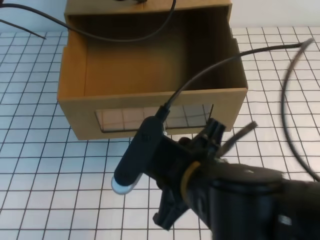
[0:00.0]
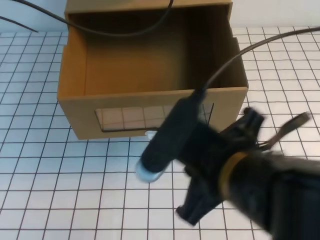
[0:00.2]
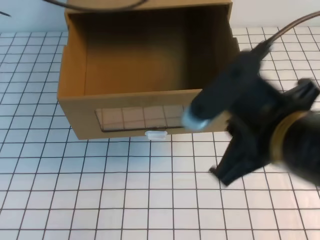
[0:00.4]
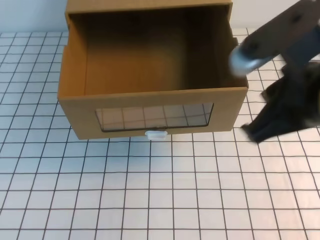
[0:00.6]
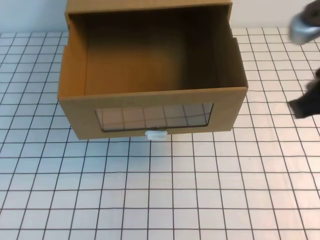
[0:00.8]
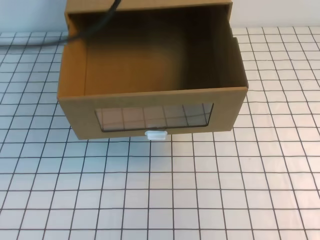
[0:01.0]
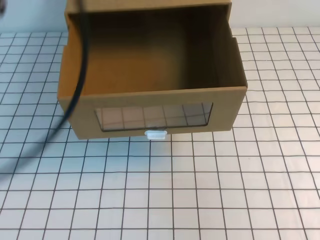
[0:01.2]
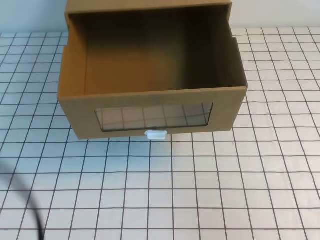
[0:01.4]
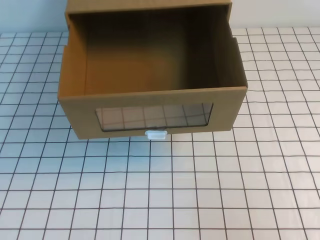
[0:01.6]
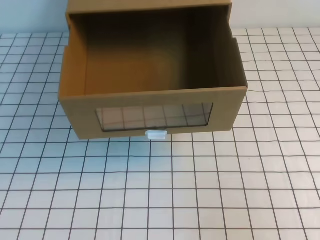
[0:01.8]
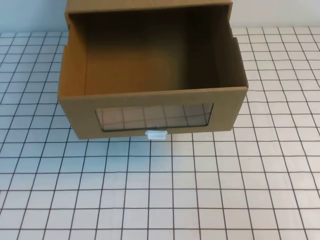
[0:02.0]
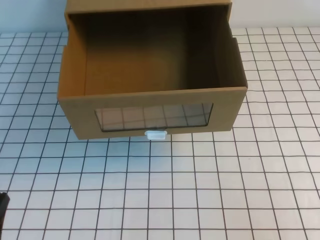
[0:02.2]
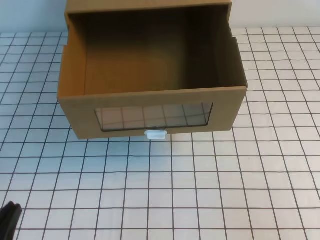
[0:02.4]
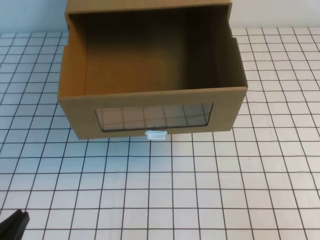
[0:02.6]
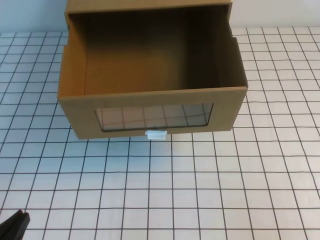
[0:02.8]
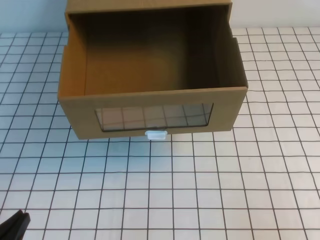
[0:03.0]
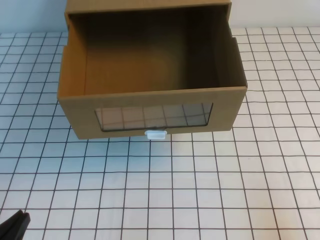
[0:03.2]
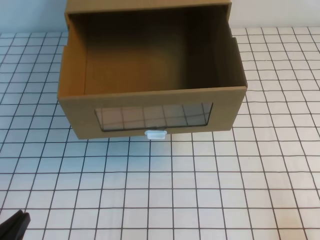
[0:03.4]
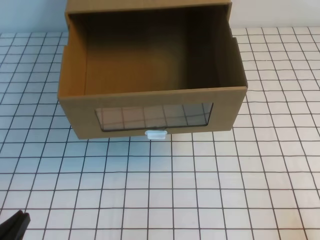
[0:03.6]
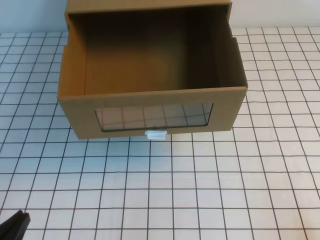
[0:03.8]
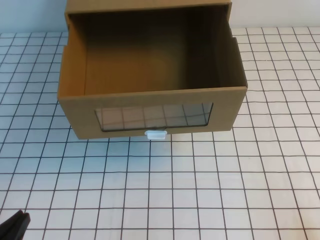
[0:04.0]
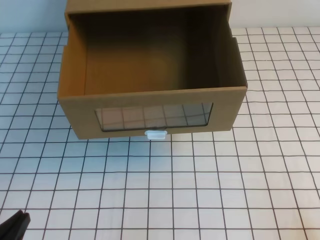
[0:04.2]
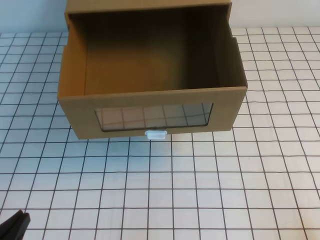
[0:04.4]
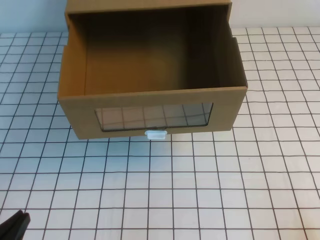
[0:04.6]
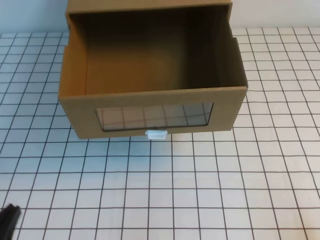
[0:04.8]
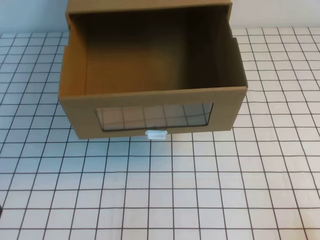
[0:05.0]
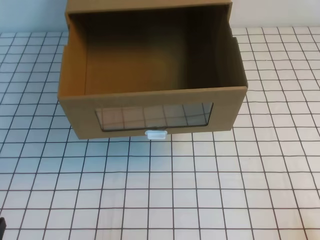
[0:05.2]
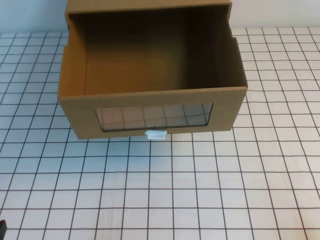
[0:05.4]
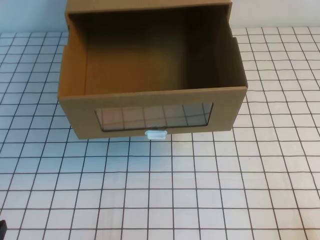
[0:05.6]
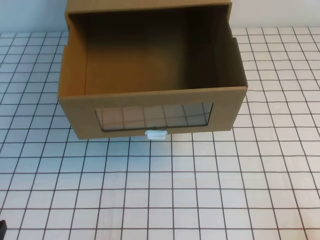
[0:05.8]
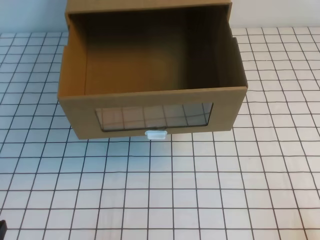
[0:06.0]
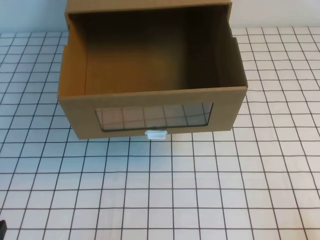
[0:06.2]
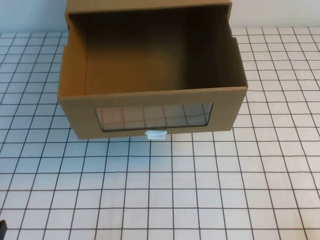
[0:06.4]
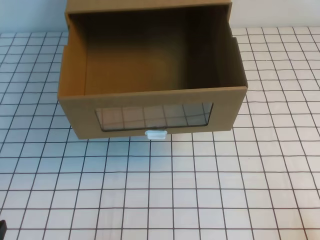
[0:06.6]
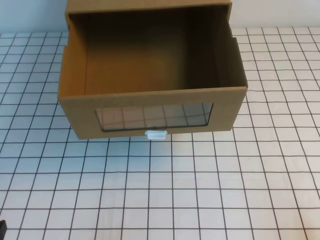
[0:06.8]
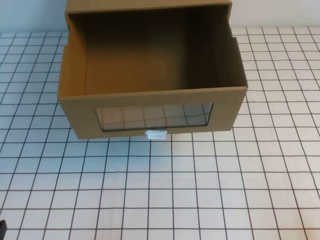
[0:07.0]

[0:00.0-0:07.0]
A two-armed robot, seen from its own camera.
Task of the whole recording: open the shoebox on the white tablecloth.
Step, 0:00.0 to 0:07.0: Open the shoe box.
0:00.0 to 0:01.4: The left gripper travels backward by about 30 cm; the right gripper heads to the right, covering approximately 25 cm, and closes up.
0:01.4 to 0:02.8: The left gripper travels downward by some 30 cm.
0:05.6 to 0:07.0: Both grippers stay about where they are.

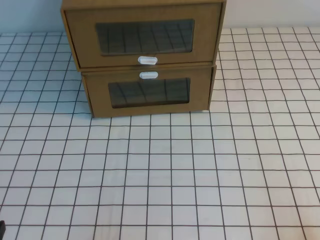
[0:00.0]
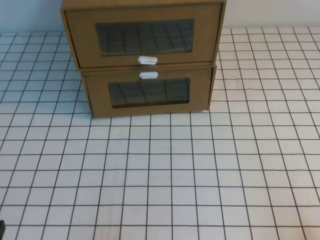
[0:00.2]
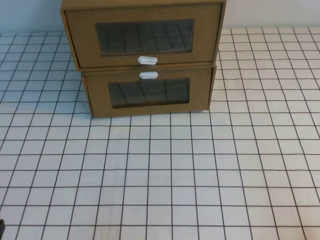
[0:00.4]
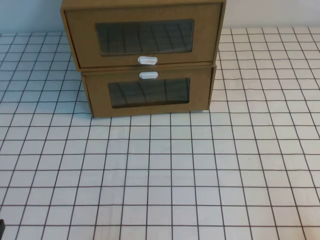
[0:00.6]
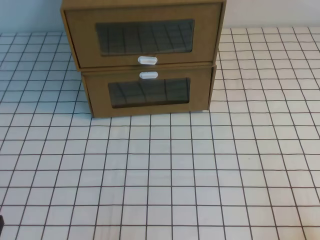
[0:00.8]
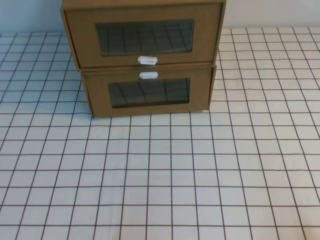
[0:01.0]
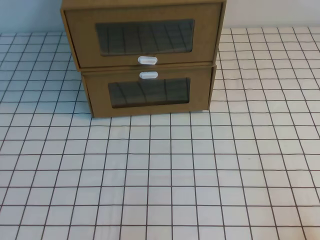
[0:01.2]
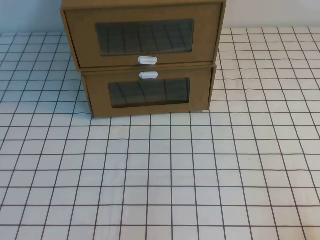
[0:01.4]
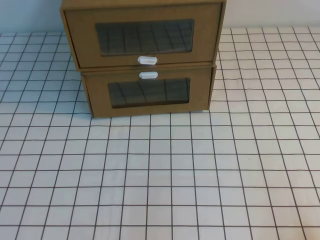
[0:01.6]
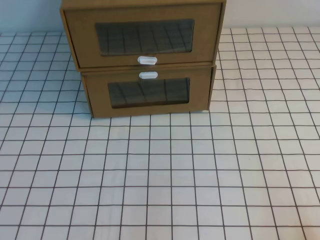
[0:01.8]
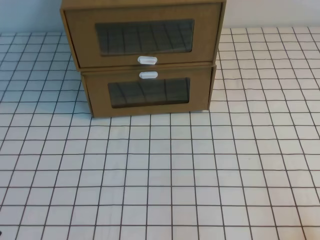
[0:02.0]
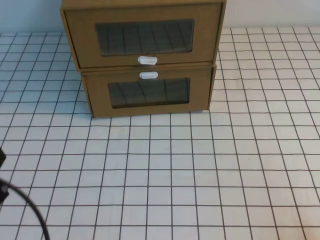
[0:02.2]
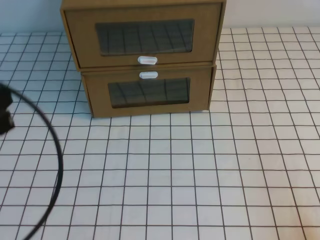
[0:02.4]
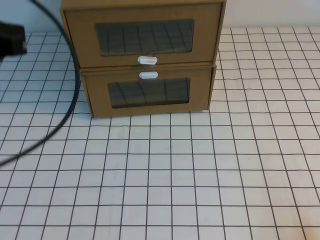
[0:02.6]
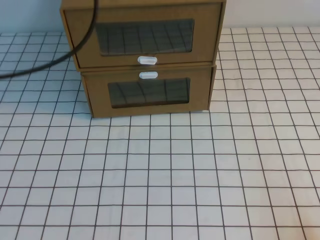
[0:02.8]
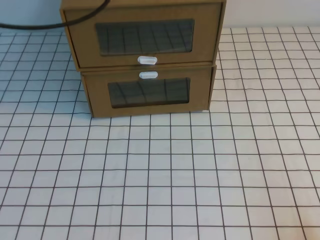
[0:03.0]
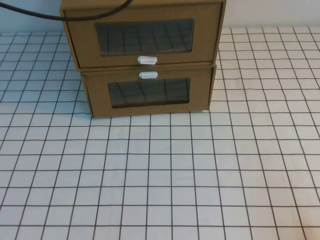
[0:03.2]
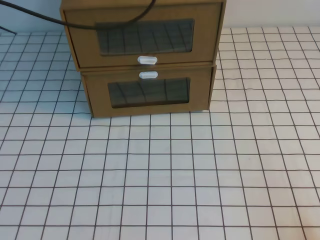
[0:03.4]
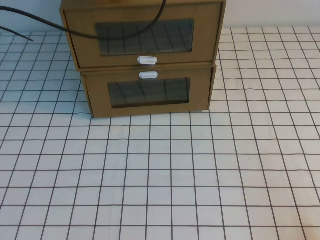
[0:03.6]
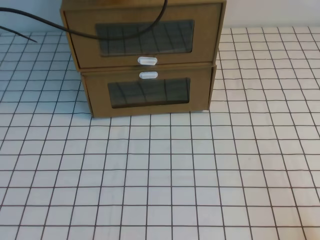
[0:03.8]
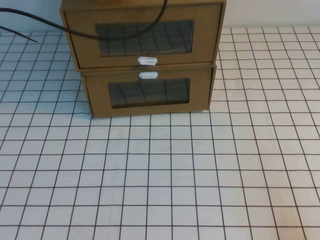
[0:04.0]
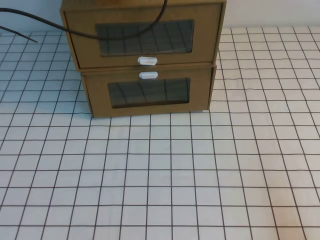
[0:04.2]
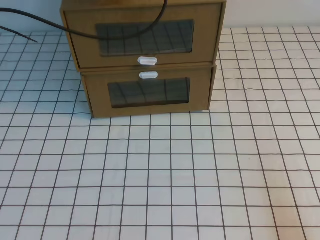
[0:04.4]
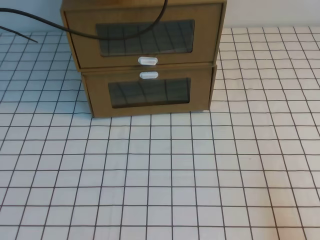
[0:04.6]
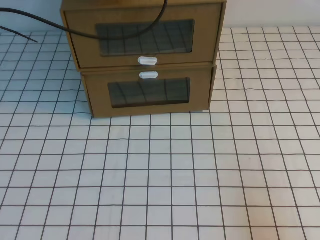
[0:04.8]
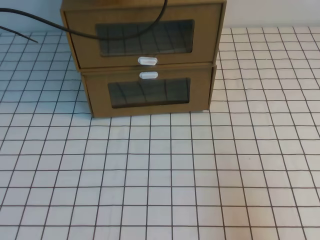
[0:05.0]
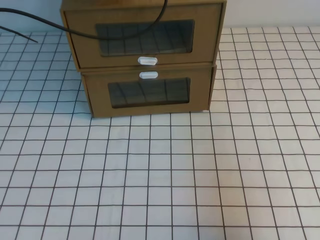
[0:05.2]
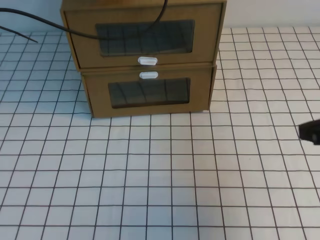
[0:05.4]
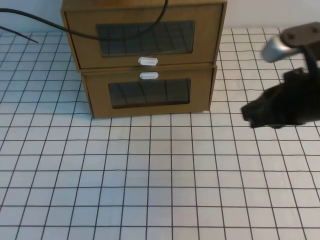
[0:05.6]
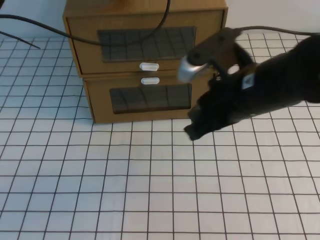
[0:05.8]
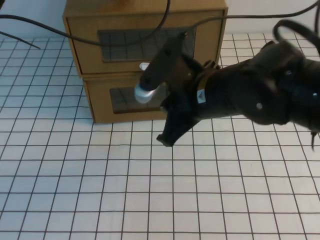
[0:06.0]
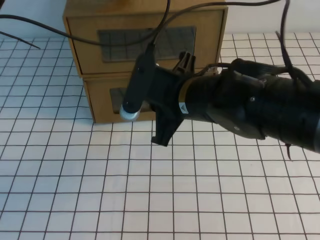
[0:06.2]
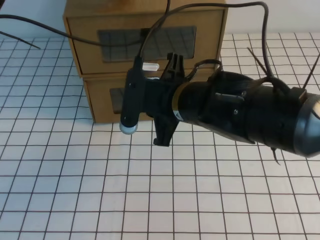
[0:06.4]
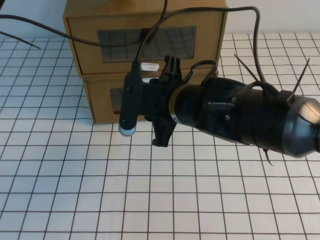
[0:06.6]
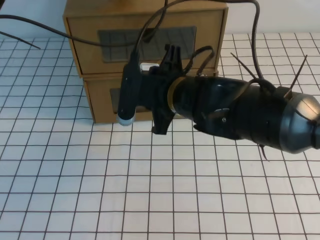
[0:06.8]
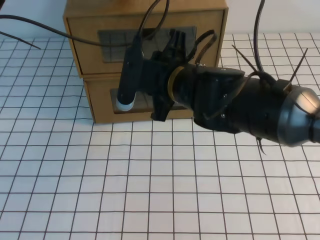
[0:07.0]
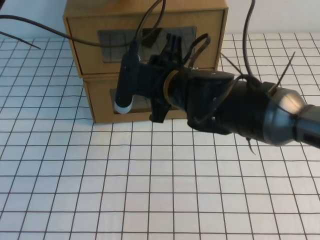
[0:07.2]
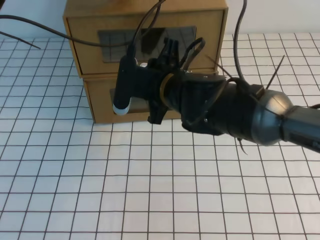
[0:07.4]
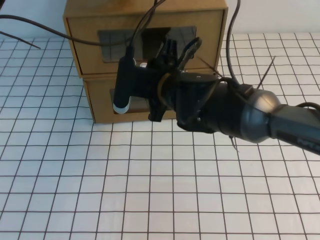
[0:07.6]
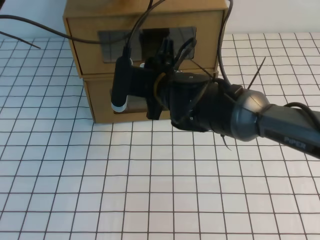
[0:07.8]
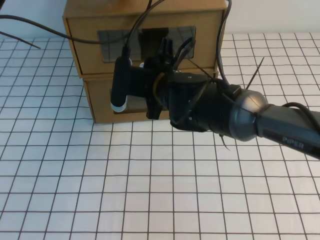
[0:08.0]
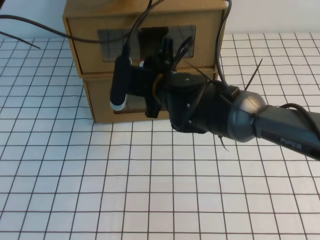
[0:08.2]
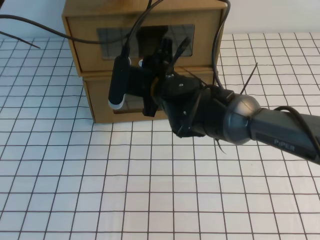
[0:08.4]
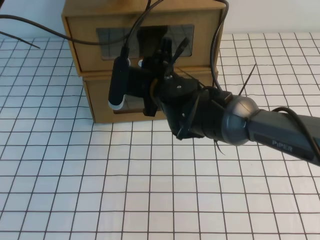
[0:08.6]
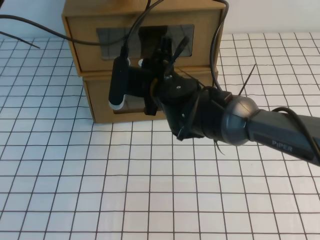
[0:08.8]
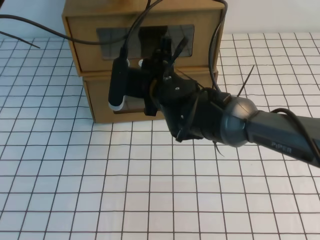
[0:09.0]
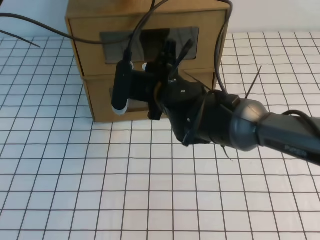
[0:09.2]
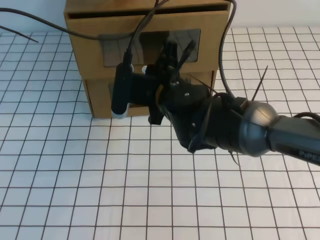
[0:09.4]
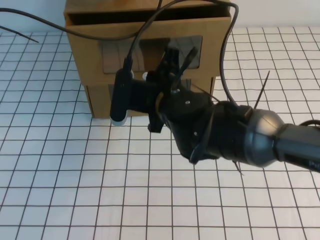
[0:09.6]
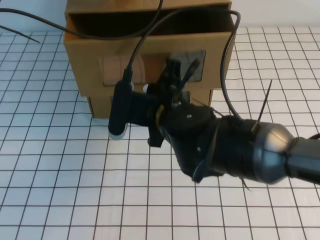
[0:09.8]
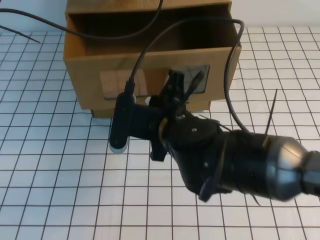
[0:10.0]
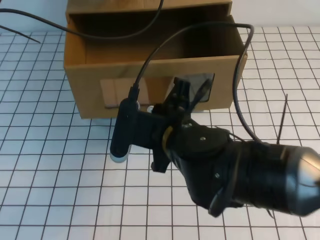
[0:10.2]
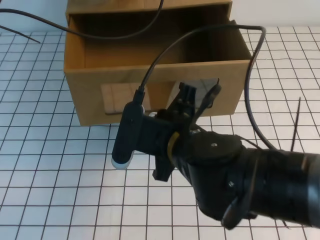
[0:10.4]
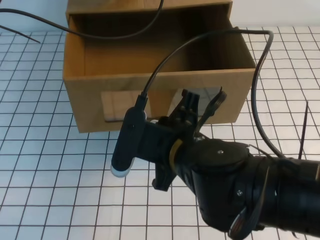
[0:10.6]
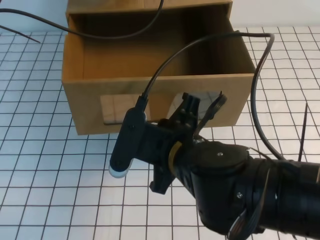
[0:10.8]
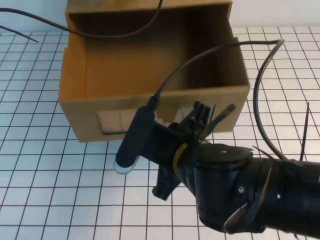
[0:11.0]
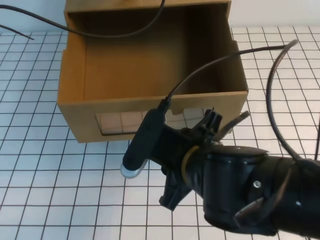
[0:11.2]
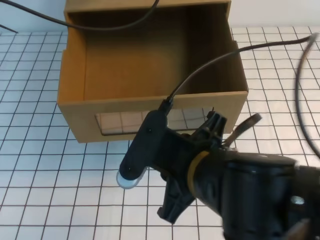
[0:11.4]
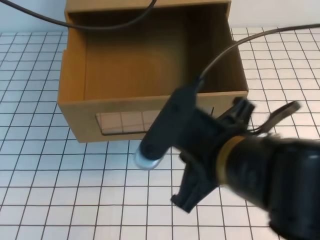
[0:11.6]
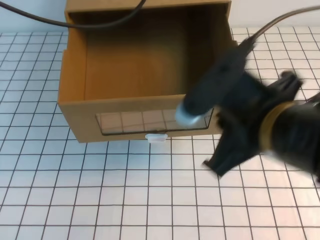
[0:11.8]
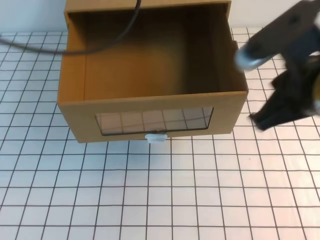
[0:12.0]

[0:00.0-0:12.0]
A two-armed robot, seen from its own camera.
Task of the whole recording: open the shoebox on the white tablecloth.
0:01.6 to 0:03.0: The left gripper goes approximately 40 cm forward and upward.
0:03.0 to 0:04.4: The left gripper moves forward, downward and to the right, roughly 15 cm.
0:04.4 to 0:06.0: The right gripper moves to the left, forward and upward, some 35 cm.
0:06.0 to 0:07.6: The right gripper heads to the left and forward, covering some 10 cm, and opens.
0:07.6 to 0:09.0: The right gripper closes up.
0:09.0 to 0:10.4: The right gripper shifts approximately 15 cm backward.
0:10.4 to 0:12.0: The left gripper moves backward and upward, roughly 15 cm. Meanwhile the right gripper is displaced to the right and upward by approximately 15 cm, and opens, then closes once more.

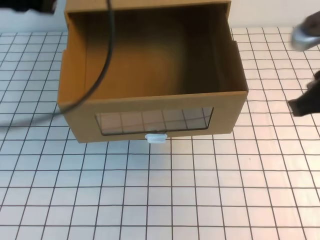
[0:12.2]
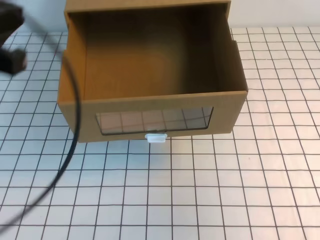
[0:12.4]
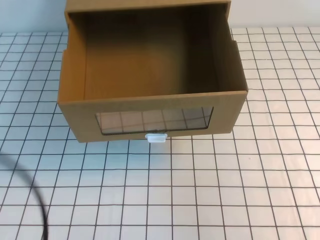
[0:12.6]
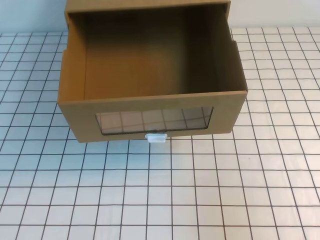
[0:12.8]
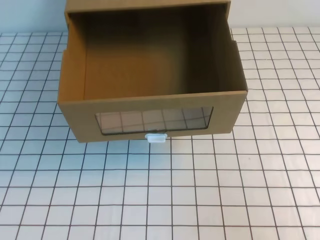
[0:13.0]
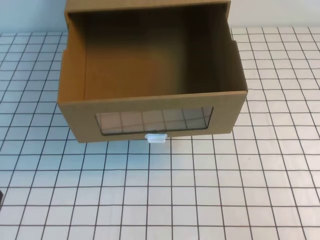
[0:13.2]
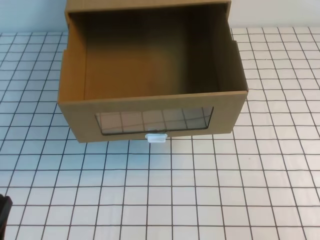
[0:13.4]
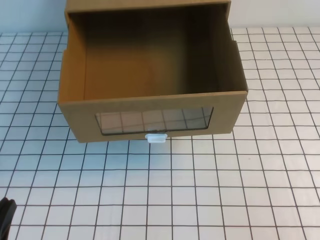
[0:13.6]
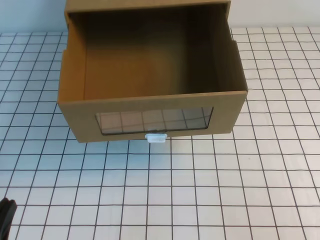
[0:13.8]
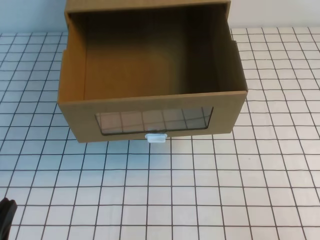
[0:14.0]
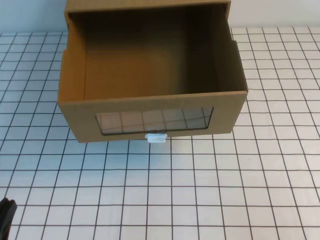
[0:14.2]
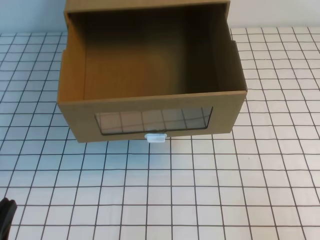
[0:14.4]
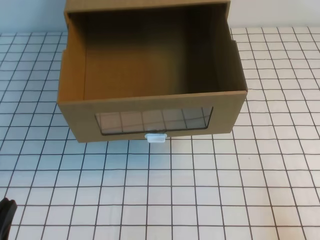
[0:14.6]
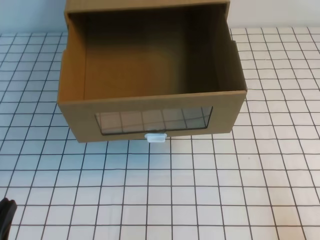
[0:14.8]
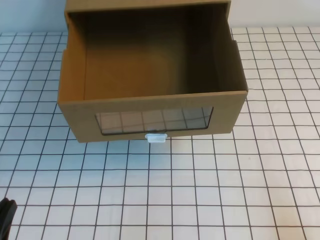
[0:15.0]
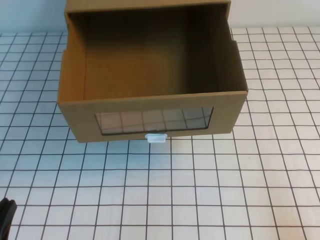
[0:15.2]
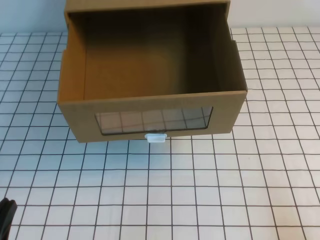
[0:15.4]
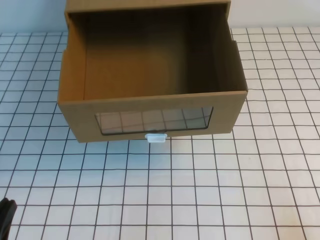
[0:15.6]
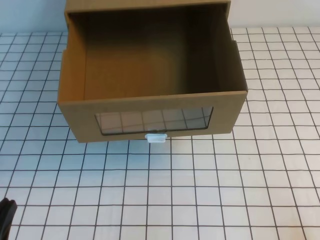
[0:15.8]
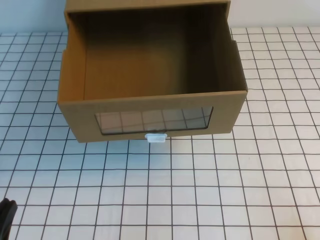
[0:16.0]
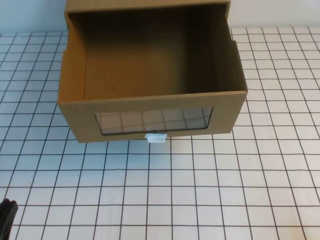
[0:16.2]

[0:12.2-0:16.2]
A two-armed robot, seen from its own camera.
Task of the whole recording: open the shoebox on the white tablecloth.
0:12.2 to 0:13.6: The right gripper is displaced backward, downward and to the right by approximately 20 cm, while the left gripper heads downward and backward, covering roughly 35 cm.
0:13.6 to 0:14.8: The right gripper shifts by roughly 5 cm.
